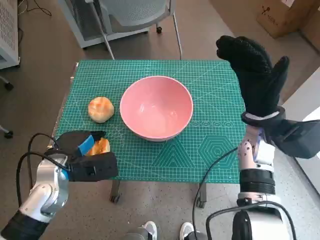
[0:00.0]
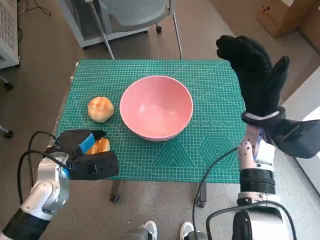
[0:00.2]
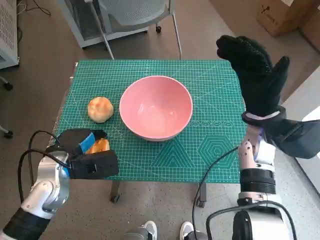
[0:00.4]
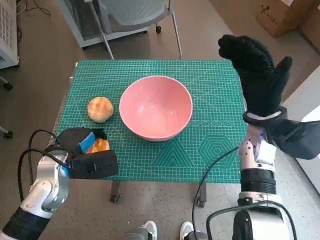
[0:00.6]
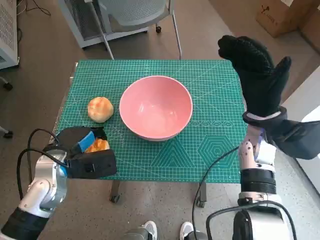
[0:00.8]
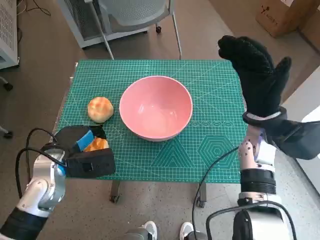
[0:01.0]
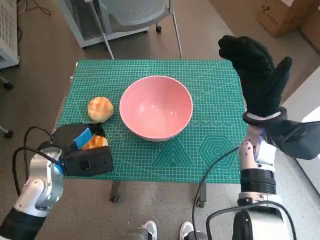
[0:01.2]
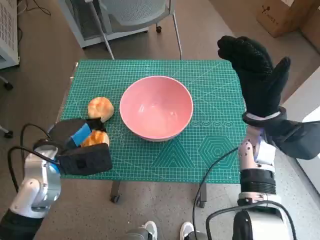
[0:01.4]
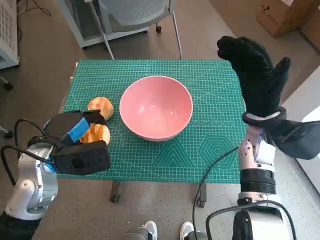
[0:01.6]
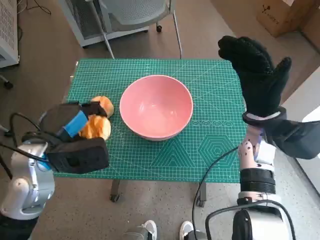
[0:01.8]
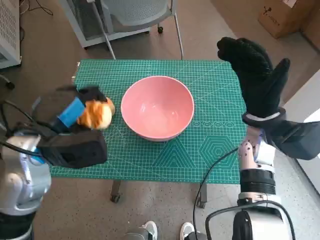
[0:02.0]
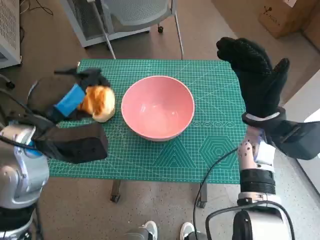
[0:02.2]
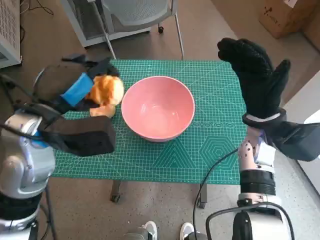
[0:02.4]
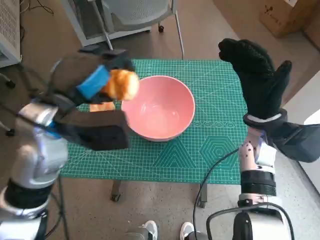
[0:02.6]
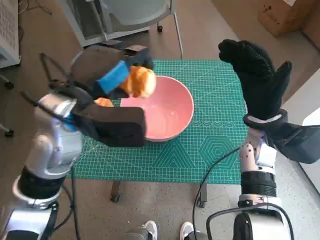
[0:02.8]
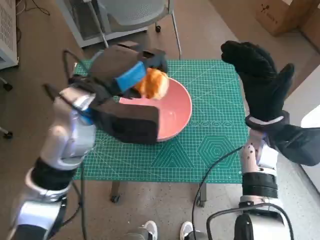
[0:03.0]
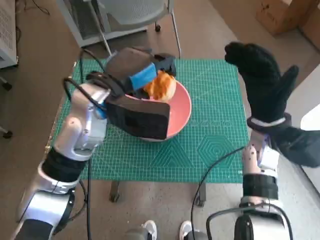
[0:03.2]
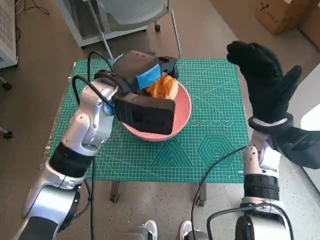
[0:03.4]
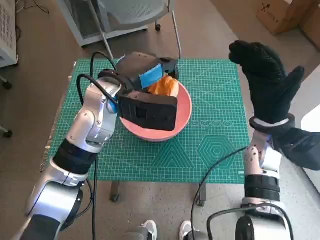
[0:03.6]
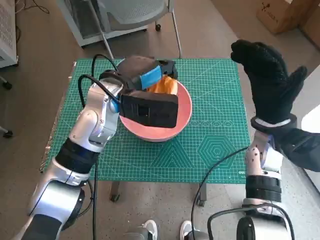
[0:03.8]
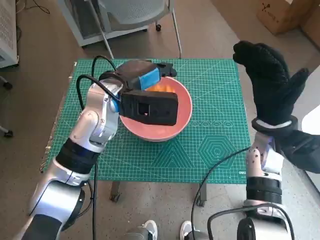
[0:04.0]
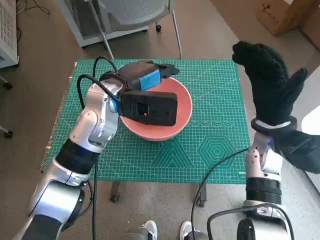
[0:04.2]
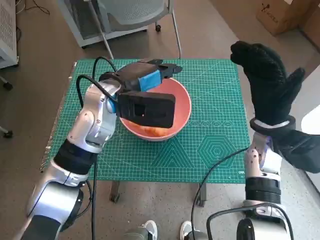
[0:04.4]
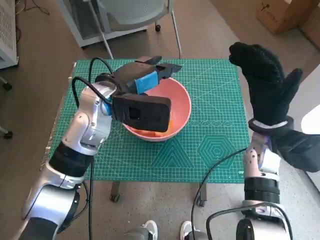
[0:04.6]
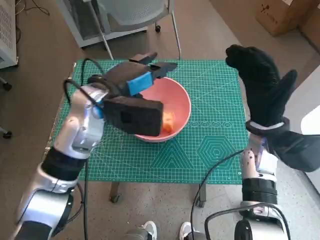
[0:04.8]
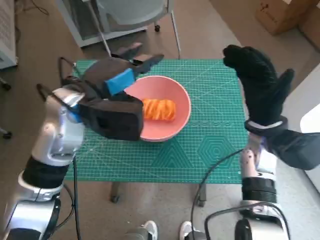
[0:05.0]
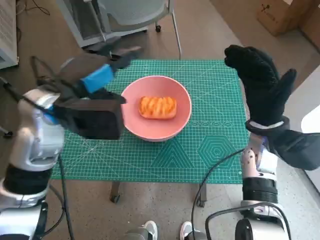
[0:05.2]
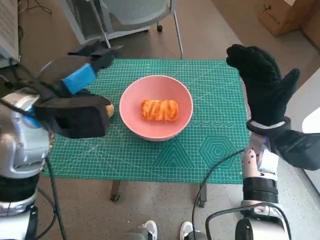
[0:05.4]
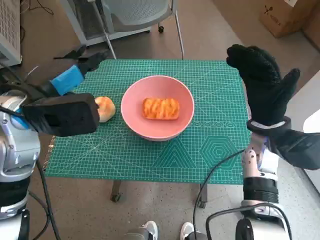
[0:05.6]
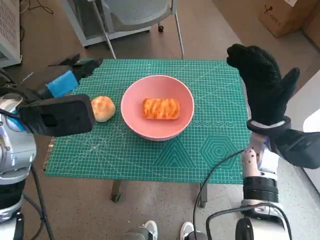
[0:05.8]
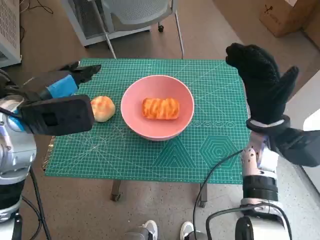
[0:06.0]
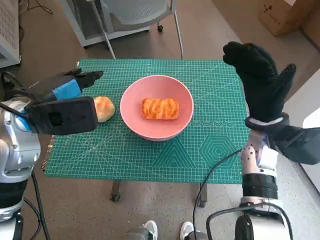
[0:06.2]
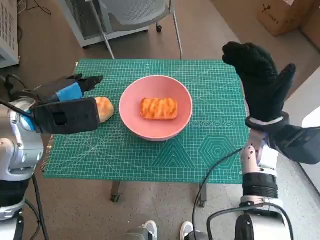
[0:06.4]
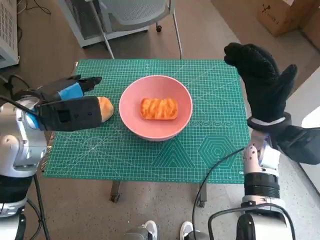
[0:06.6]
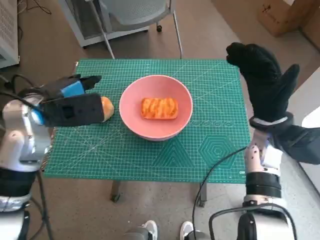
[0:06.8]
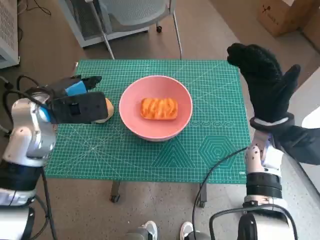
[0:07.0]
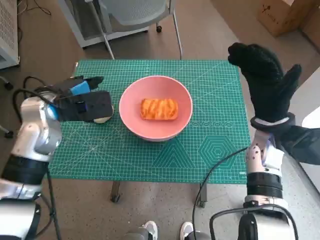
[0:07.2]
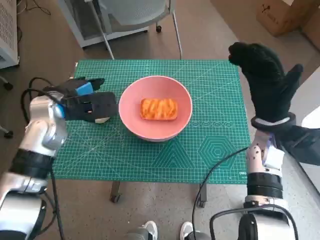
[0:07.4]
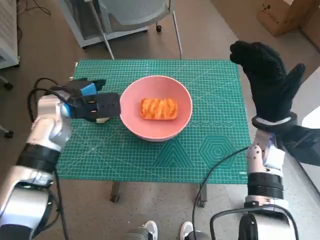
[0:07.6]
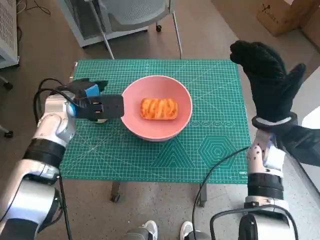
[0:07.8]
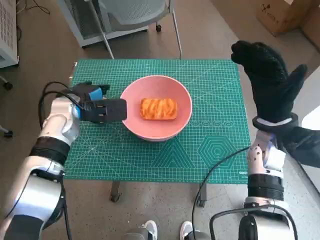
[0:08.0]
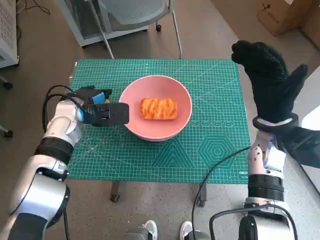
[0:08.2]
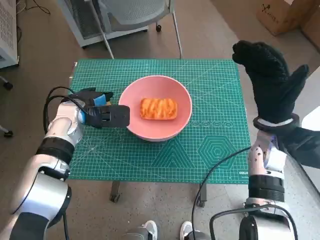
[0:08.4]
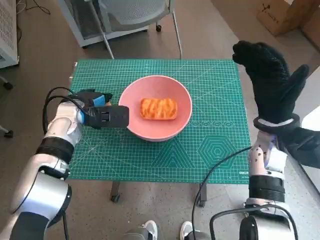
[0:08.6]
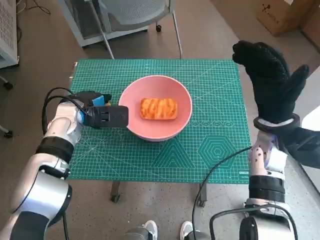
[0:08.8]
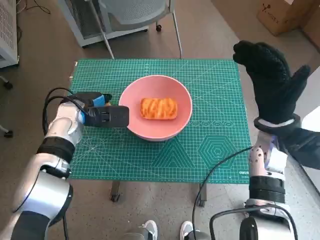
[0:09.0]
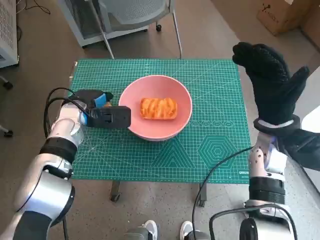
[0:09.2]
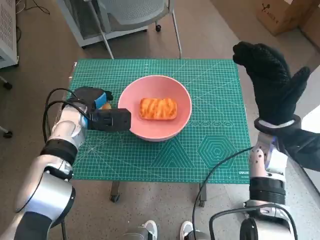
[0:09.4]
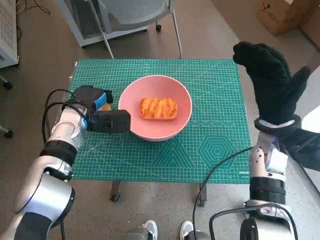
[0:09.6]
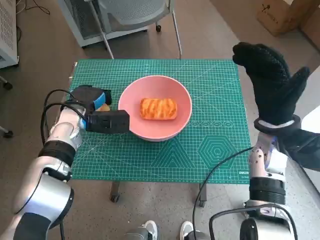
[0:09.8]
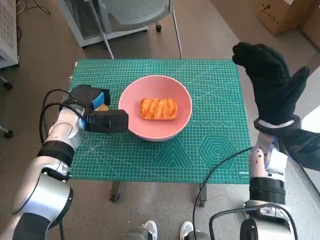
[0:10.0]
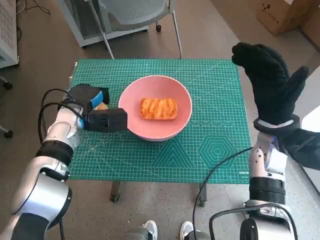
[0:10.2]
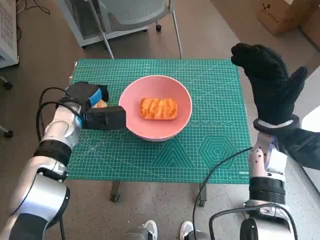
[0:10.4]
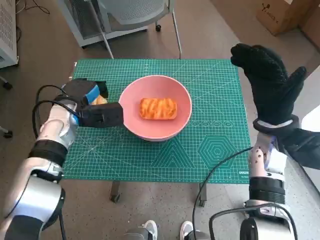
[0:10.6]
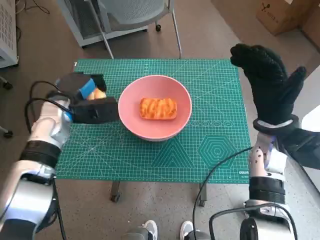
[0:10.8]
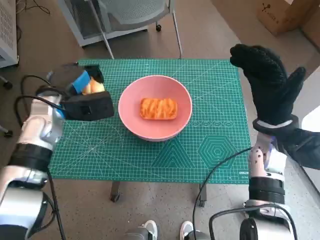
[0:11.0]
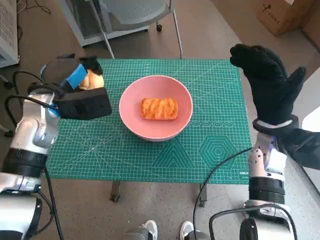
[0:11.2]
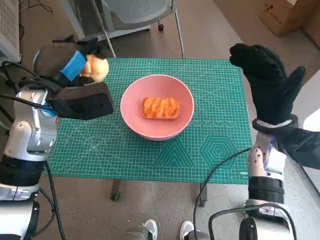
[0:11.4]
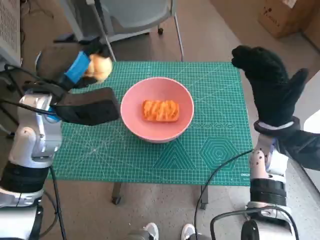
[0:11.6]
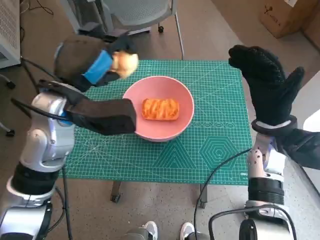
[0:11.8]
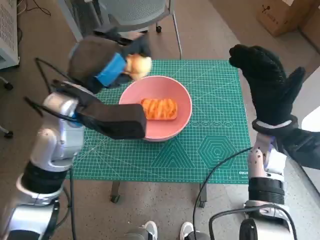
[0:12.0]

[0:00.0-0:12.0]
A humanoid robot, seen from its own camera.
Step, 0:00.2 to 0:04.0: Place the long bread in pink bowl with left hand.
Step, 0:04.2 to 0:09.2: Grasp the round bread with left hand.
0:00.0 to 0:01.6: The hands stay close to where they were, moving slightly.
0:01.6 to 0:03.0: The left hand moves upward and to the right, approximately 15 cm.
0:03.0 to 0:04.4: The left hand changes place by some 5 cm.
0:04.4 to 0:06.0: The left hand shifts roughly 15 cm to the left and backward.
0:06.0 to 0:07.6: The left hand is displaced downward and forward by roughly 10 cm.
0:07.6 to 0:09.0: The left hand shifts by roughly 5 cm.
0:09.0 to 0:10.4: The hands move only a little.
0:10.4 to 0:12.0: The left hand travels upward, to the right and backward by some 15 cm.

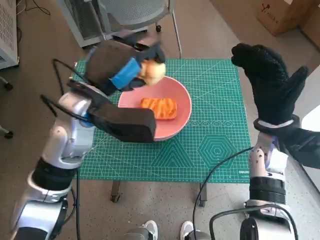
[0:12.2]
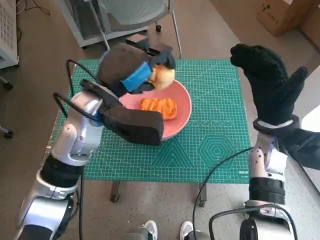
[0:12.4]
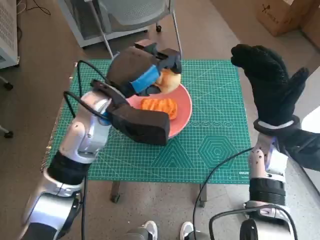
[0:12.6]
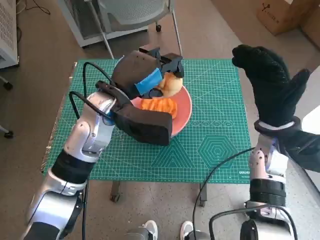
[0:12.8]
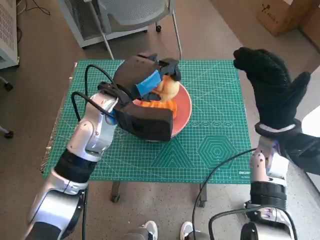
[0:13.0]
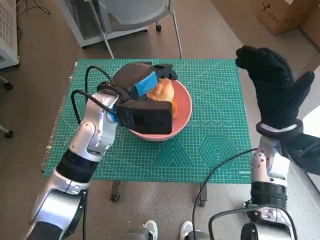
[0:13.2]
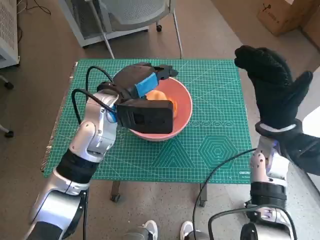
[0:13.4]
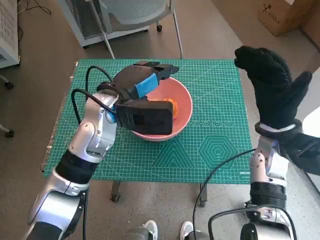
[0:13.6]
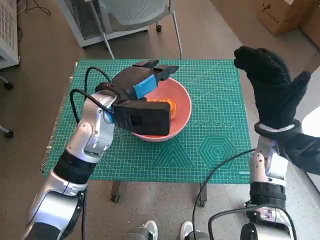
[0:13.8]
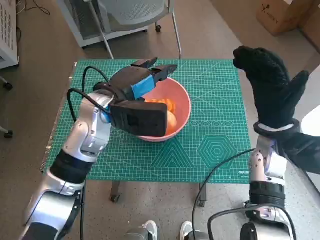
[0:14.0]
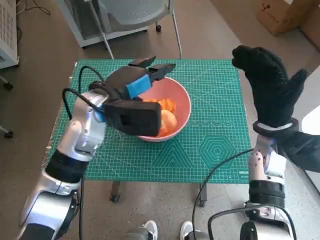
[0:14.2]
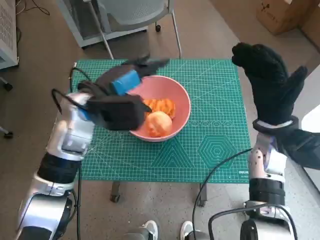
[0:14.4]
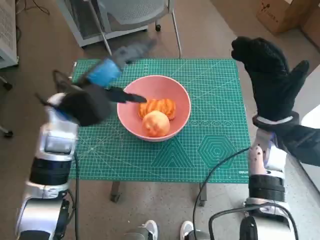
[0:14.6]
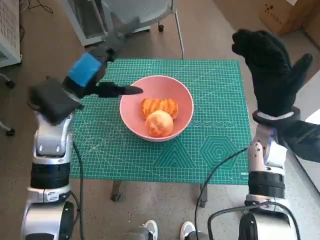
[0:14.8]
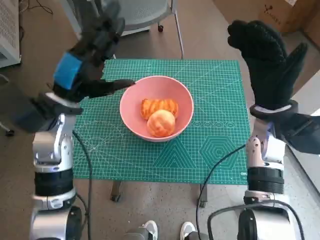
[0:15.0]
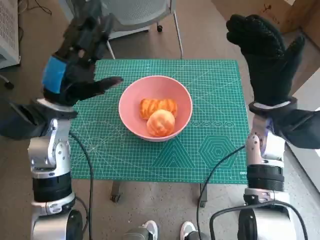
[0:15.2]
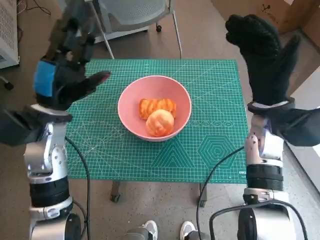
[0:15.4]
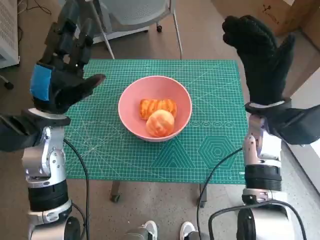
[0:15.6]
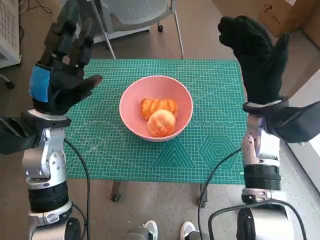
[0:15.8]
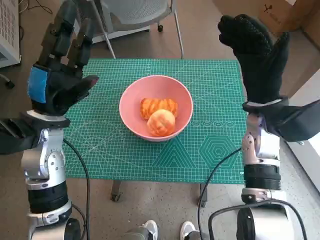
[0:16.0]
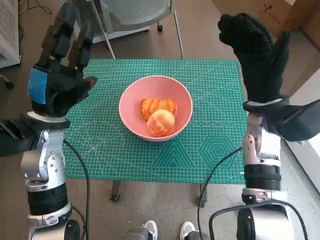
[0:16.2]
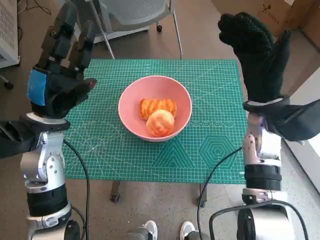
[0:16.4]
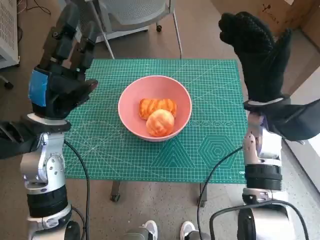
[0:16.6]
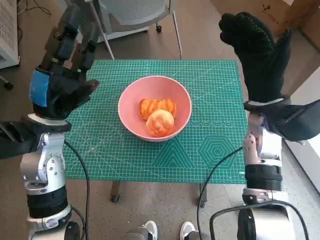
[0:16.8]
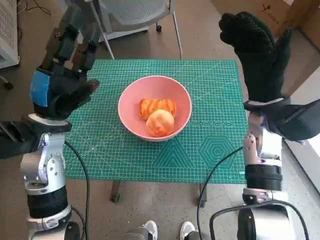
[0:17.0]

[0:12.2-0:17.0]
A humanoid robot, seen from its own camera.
0:12.2 to 0:13.8: The left hand moves approximately 5 cm.
0:13.8 to 0:15.4: The left hand shifts approximately 10 cm to the left.
0:15.4 to 0:17.0: The hands make only small movements.

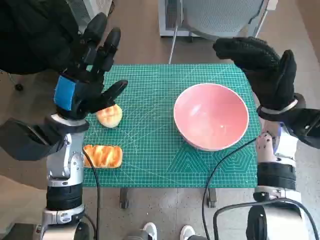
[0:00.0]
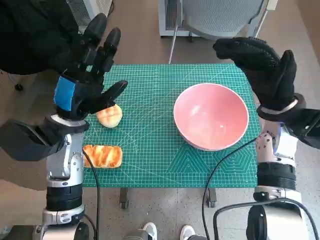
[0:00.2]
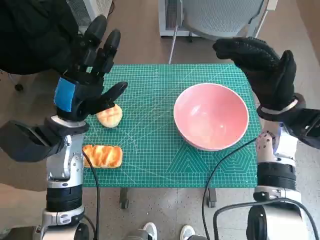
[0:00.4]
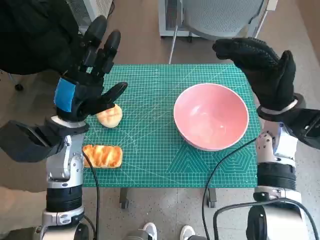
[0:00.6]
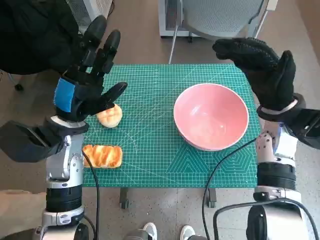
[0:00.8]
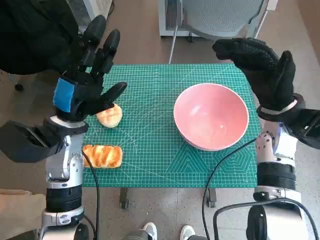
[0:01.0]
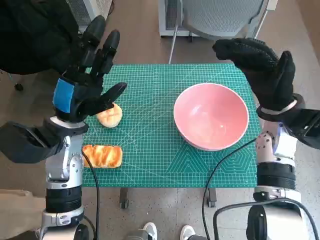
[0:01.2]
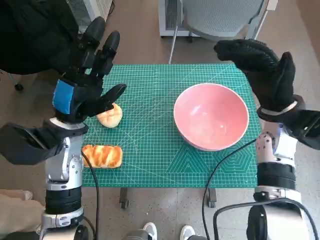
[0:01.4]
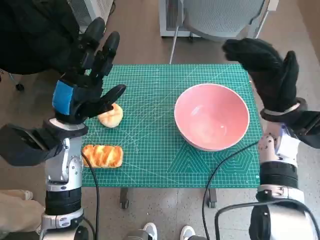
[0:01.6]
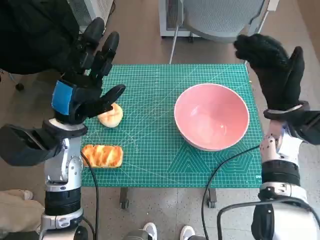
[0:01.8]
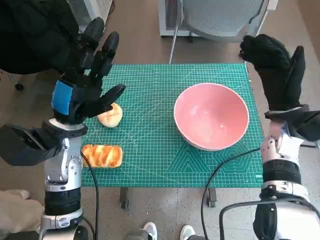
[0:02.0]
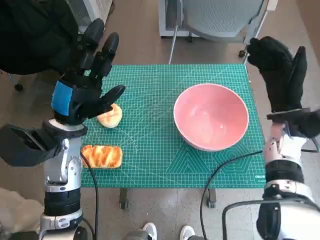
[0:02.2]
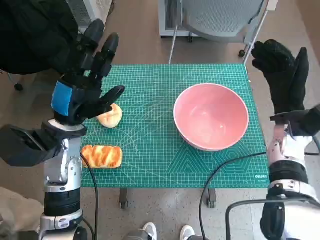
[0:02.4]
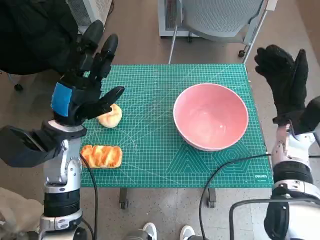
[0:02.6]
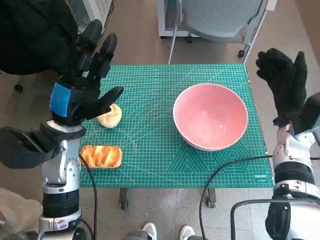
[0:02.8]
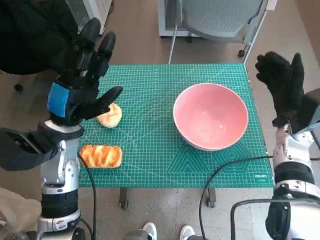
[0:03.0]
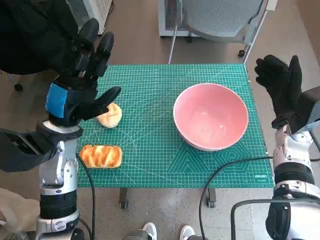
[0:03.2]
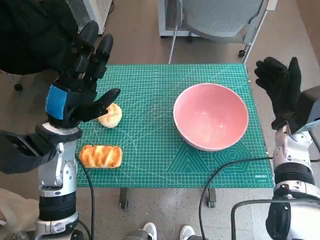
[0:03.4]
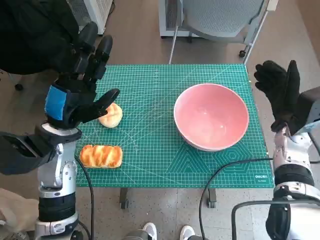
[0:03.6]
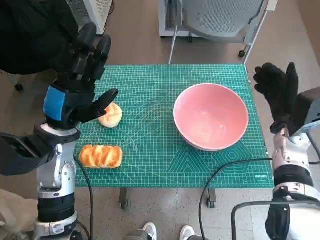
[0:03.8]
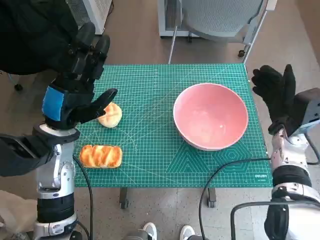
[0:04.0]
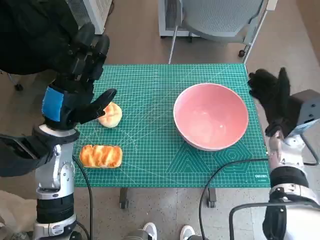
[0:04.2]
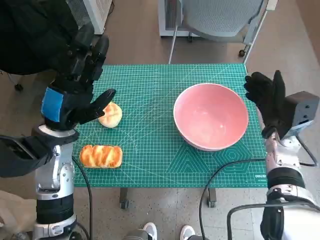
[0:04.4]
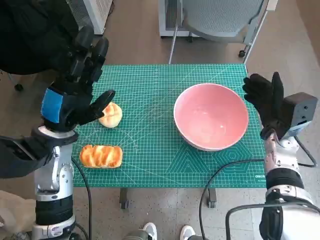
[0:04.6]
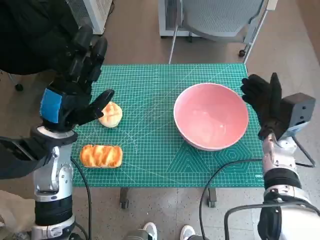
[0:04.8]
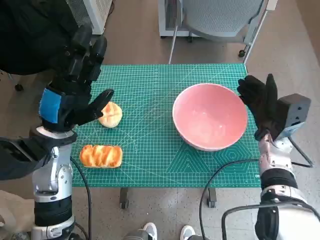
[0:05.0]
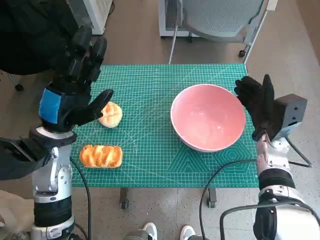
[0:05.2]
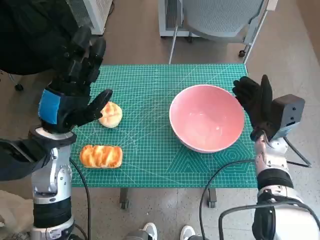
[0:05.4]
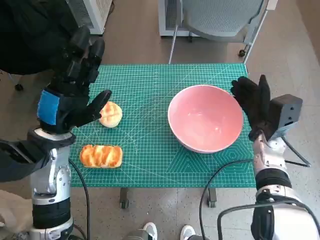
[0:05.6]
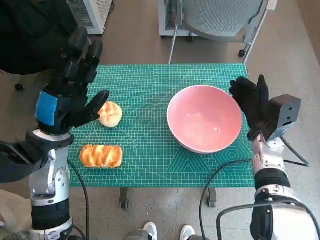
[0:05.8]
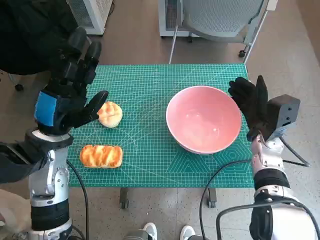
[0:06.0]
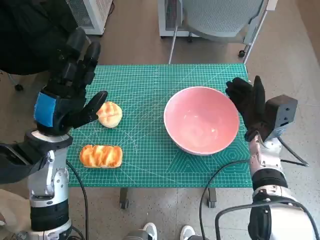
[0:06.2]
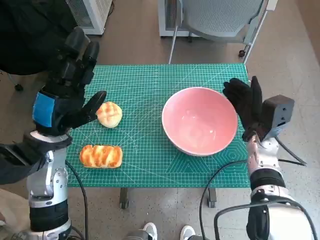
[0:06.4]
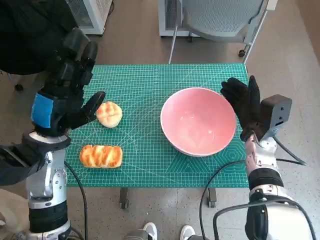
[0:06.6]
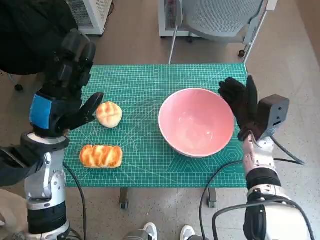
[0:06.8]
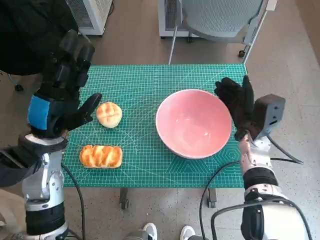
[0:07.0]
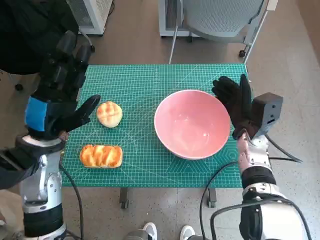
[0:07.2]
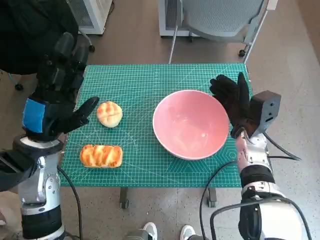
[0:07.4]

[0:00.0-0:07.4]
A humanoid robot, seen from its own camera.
0:01.4 to 0:03.0: The right hand is displaced downward by about 5 cm.
0:03.0 to 0:04.4: The hands stay close to where they were, moving slightly.
